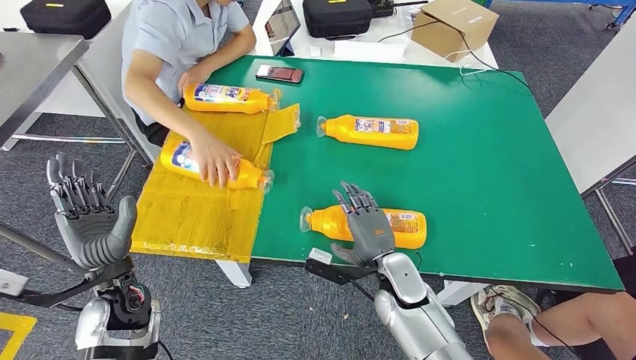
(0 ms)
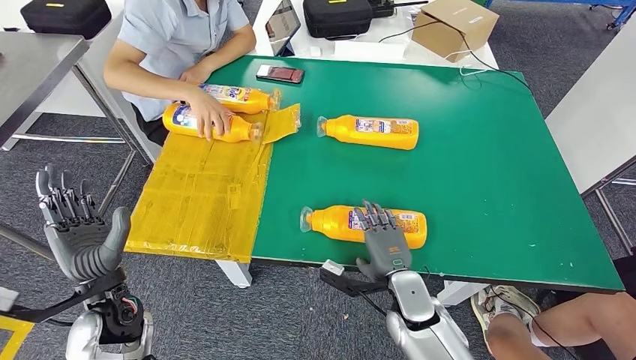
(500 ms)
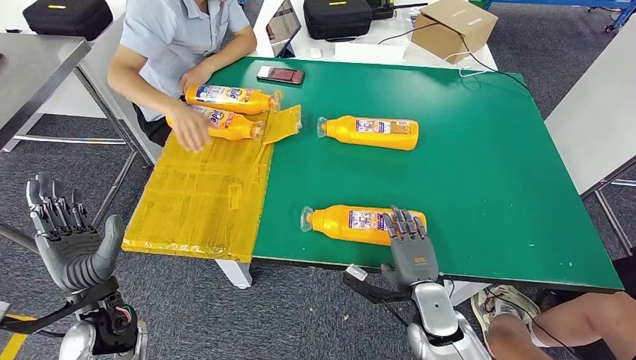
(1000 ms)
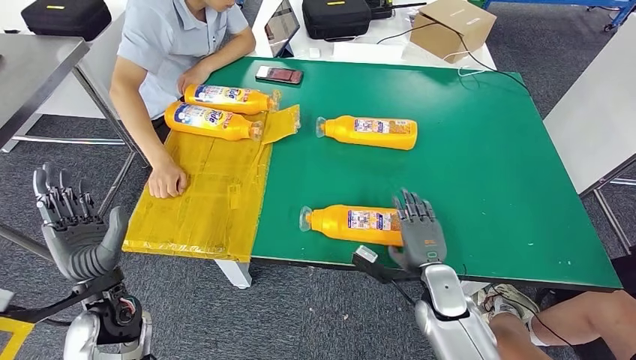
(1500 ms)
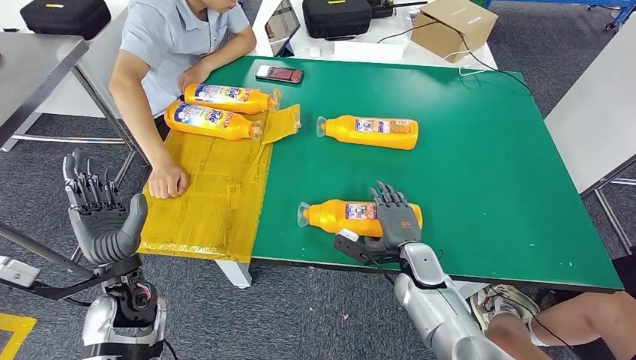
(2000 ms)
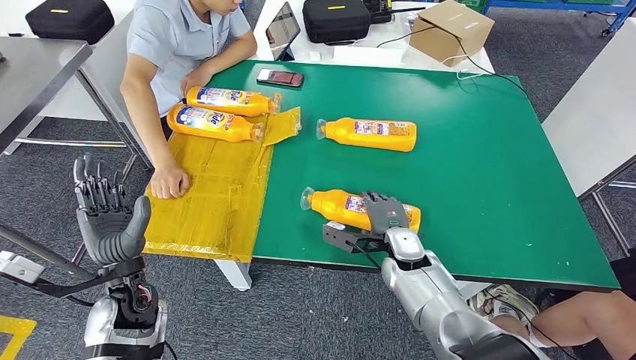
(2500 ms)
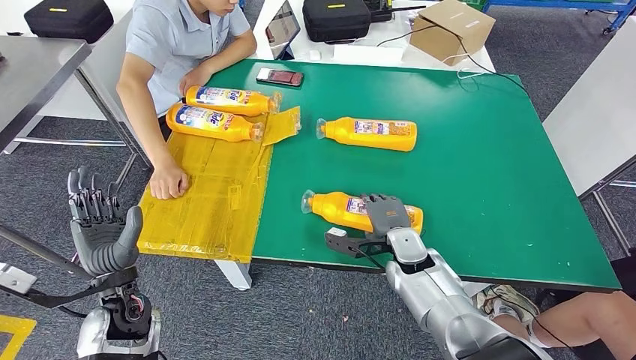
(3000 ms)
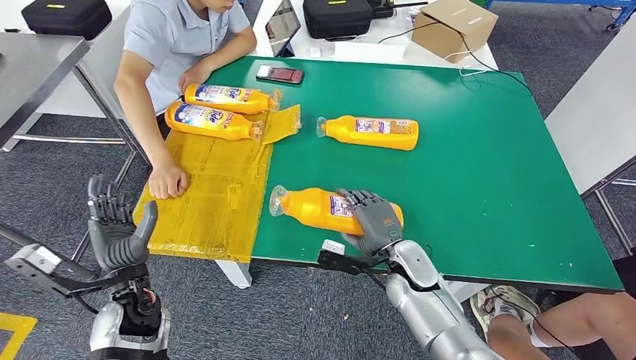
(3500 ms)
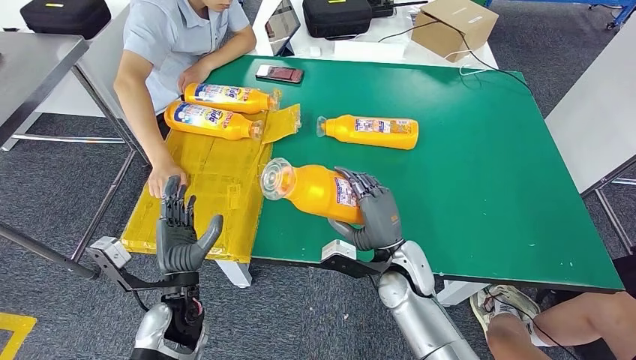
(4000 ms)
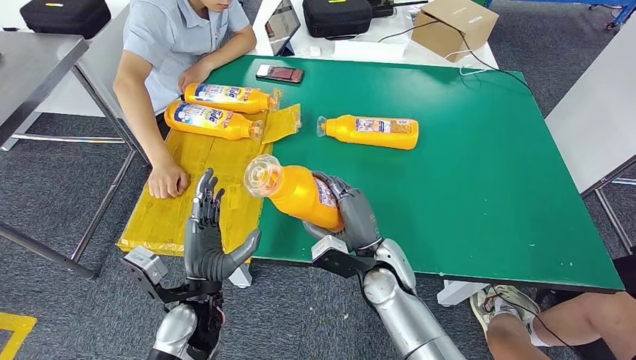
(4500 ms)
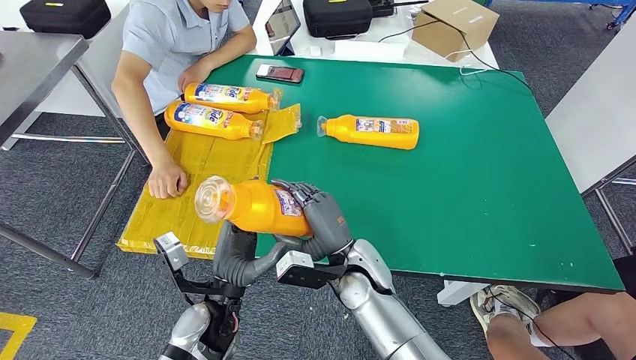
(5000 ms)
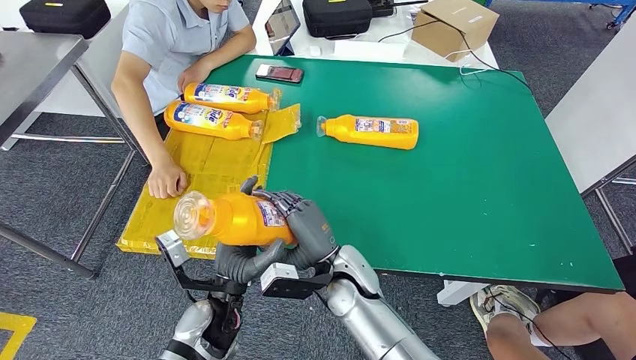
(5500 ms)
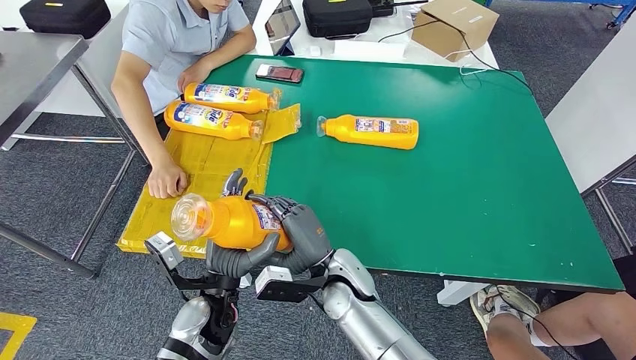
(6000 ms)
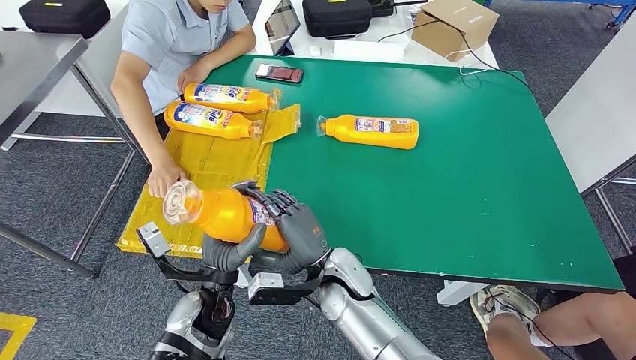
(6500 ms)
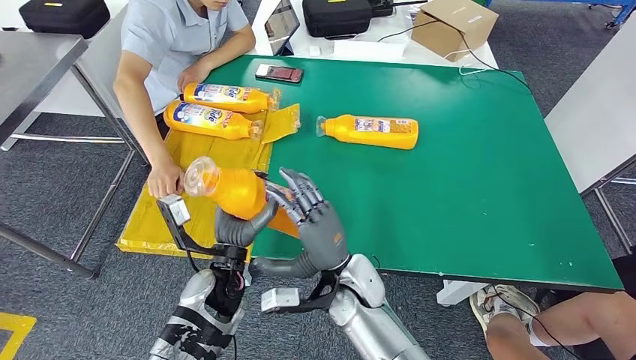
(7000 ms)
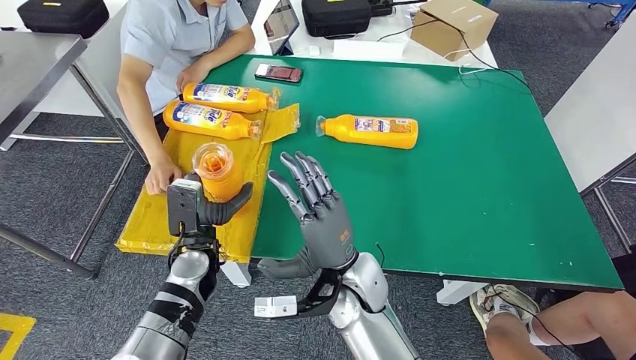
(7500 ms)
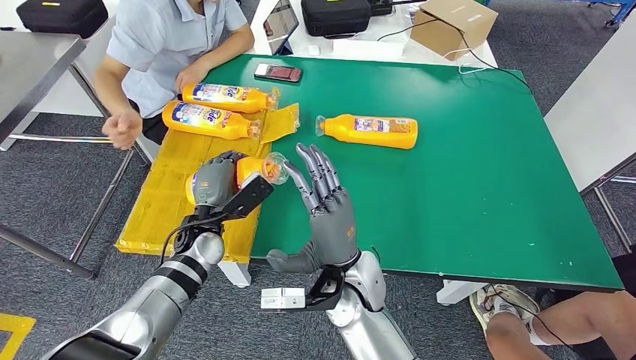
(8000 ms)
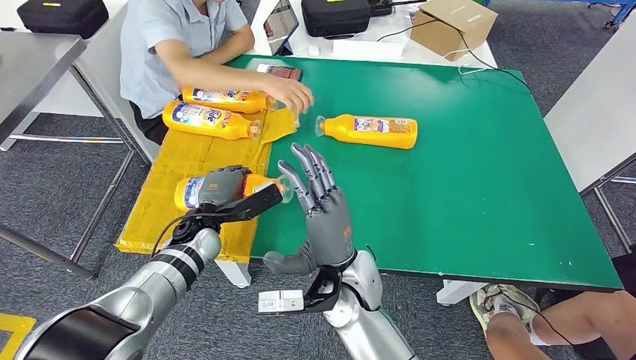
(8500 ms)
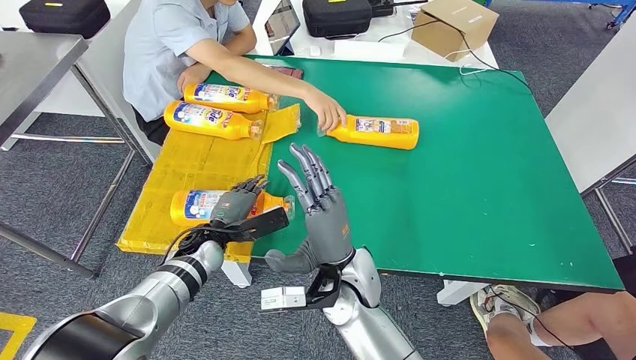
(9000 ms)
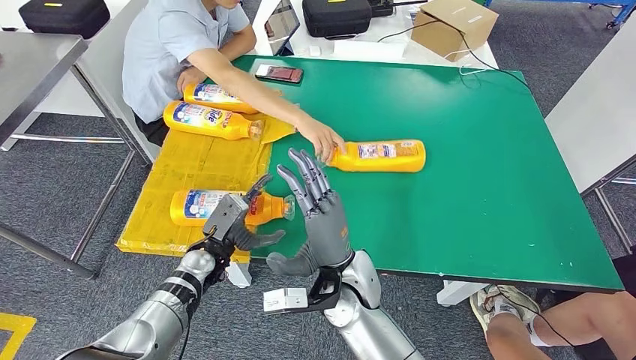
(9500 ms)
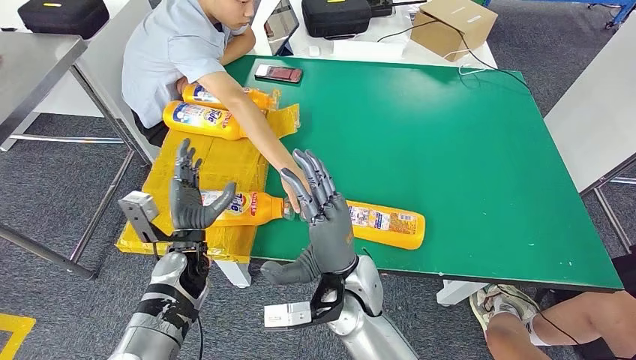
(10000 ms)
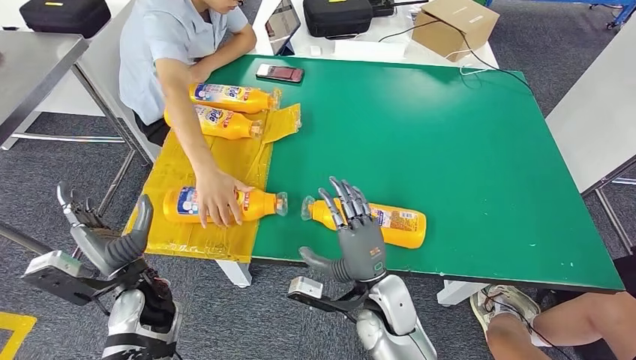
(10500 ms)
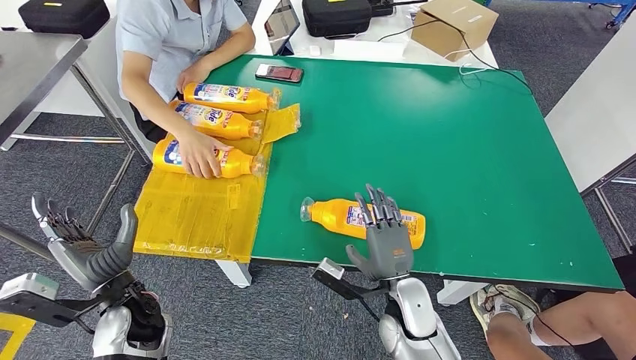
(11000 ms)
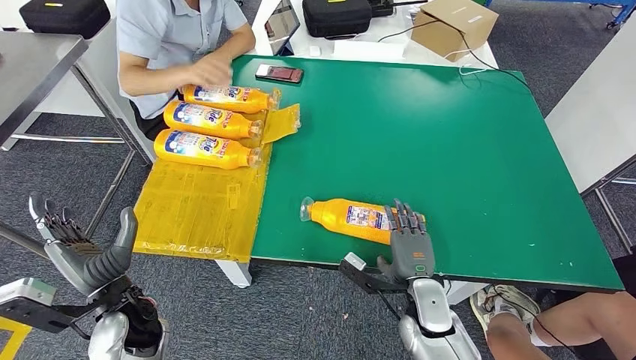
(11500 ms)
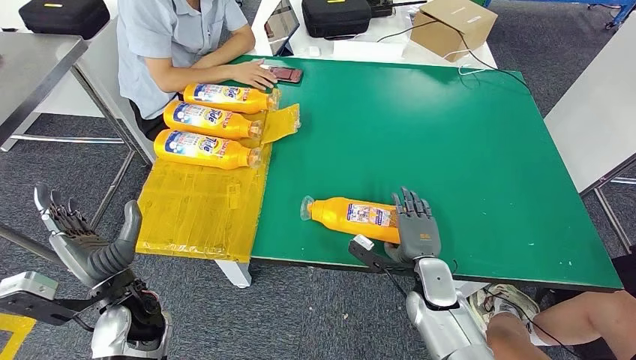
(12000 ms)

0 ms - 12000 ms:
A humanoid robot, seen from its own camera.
Step, 0 ms - 4500 ms: Pick up the fast-moving consumer goods bottle from the table.
Step, 5000 ms - 10000 ms: Flip the fast-moving consumer goods bottle to the front side.
0 ms - 2000 ms: The right hand travels to the right by some 5 cm.
2000 ms - 4000 ms: The left hand goes some 5 cm to the right, while the right hand moves upward, roughly 5 cm.
4000 ms - 6000 ms: The right hand is displaced to the left by some 10 cm; the left hand is displaced to the right by approximately 5 cm.

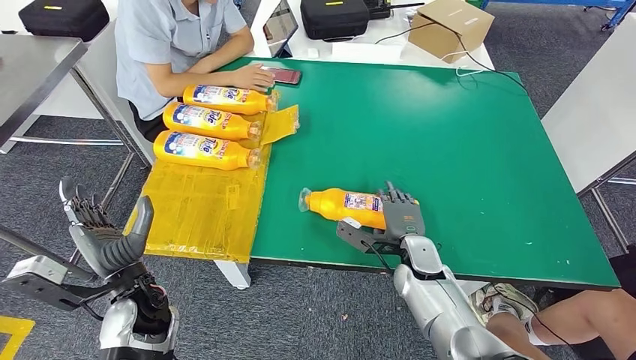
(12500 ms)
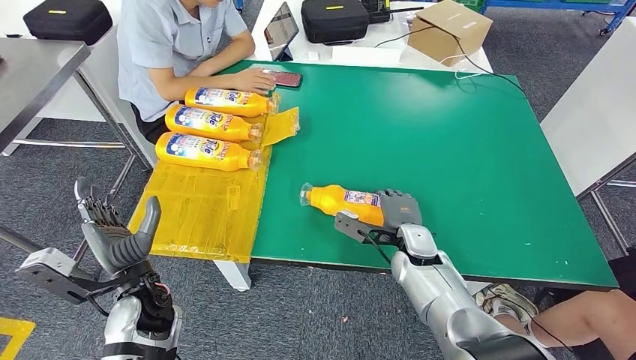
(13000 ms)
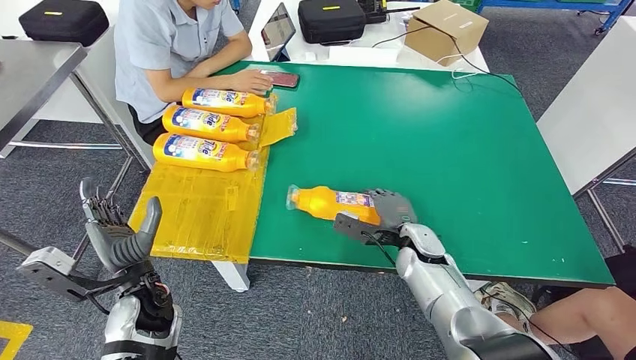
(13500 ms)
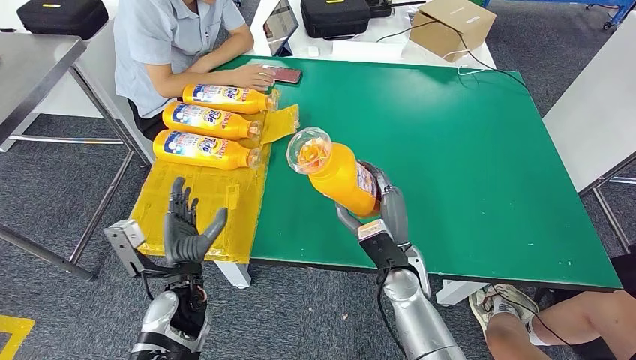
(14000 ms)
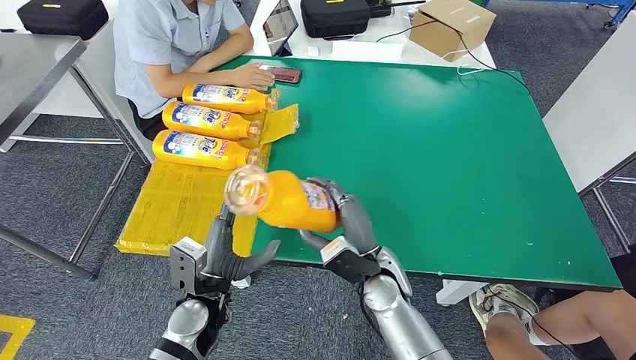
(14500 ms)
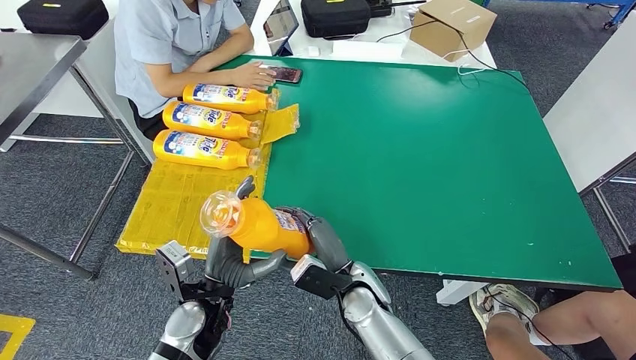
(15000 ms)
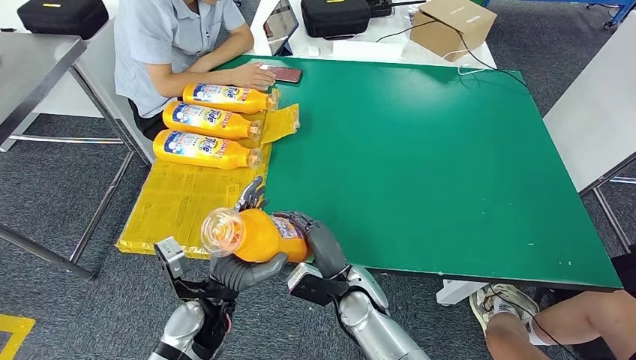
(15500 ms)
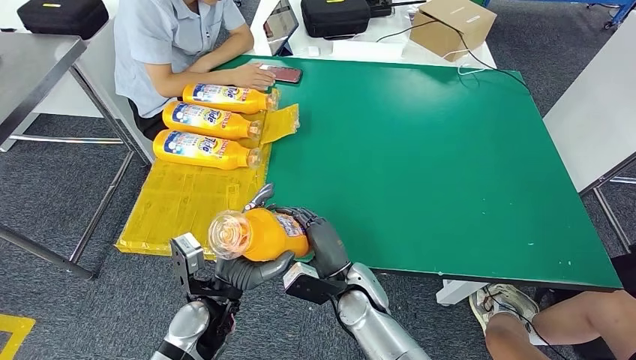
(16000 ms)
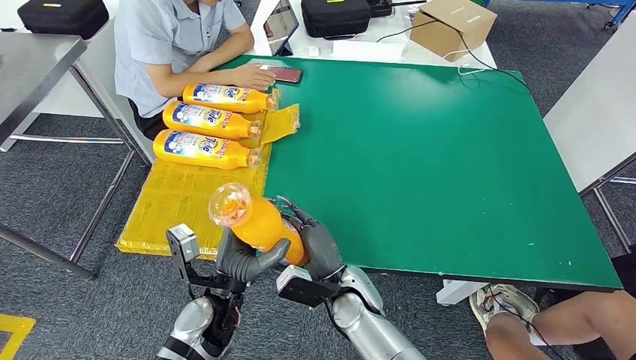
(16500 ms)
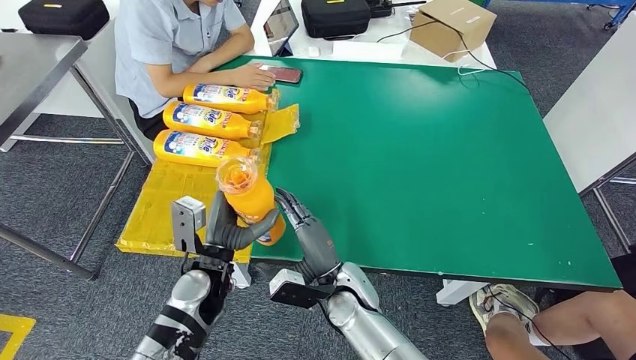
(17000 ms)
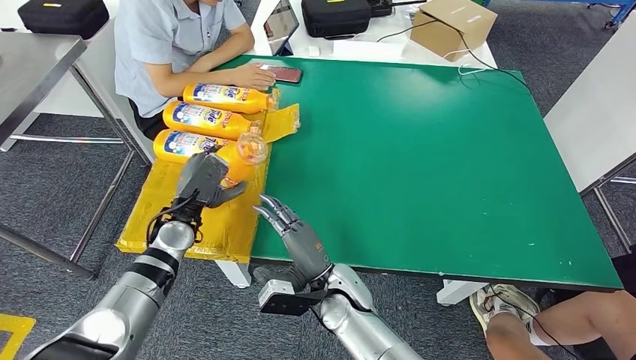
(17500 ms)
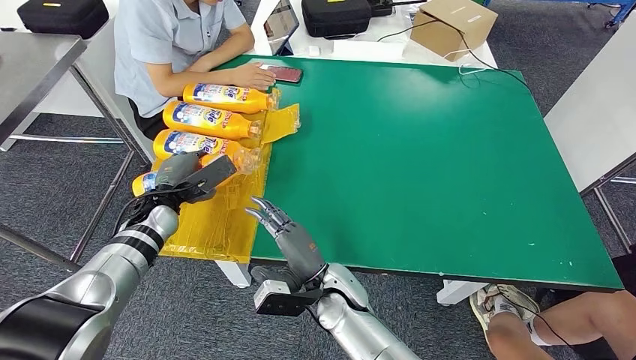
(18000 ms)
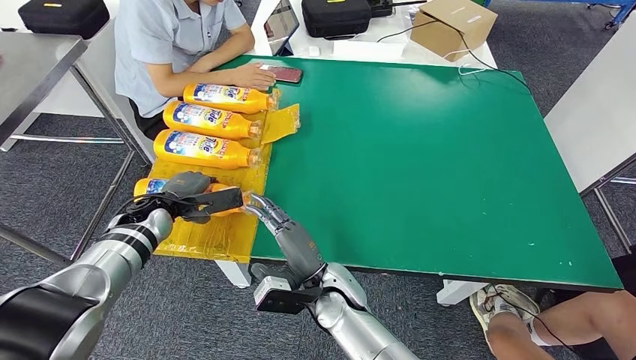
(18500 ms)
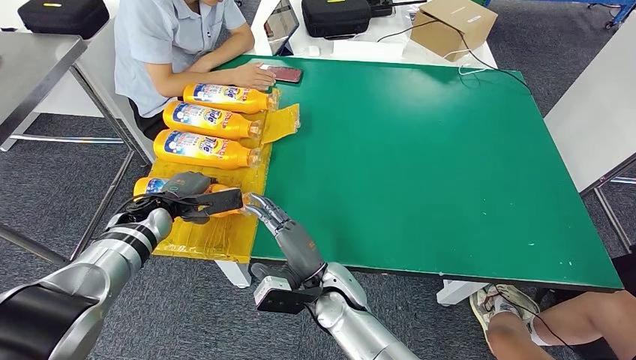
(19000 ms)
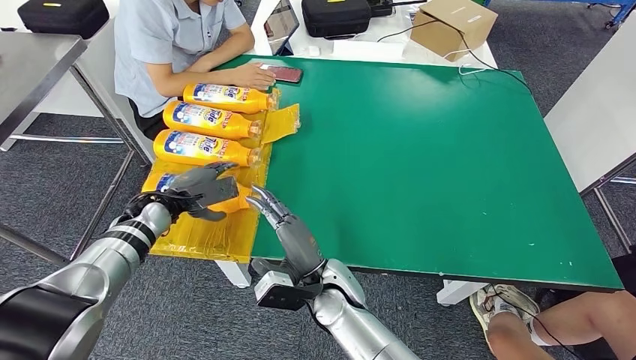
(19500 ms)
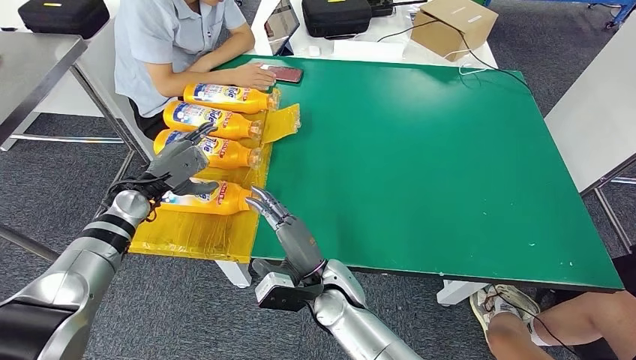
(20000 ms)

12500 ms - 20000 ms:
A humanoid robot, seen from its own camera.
Step, 14500 ms - 20000 ms: Flip the fast-moving consumer goods bottle to the front side.
14500 ms - 16500 ms: The right hand shifts by some 5 cm.
16500 ms - 18000 ms: The left hand moves forward and to the left, approximately 25 cm.
18000 ms - 20000 ms: The left hand moves some 5 cm.
